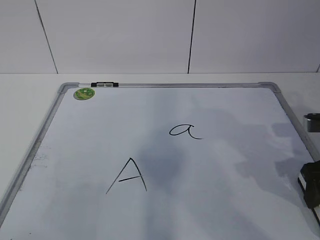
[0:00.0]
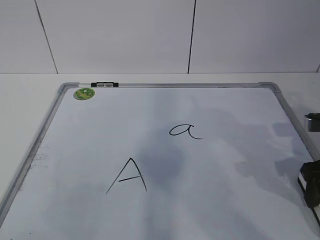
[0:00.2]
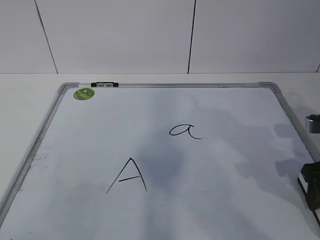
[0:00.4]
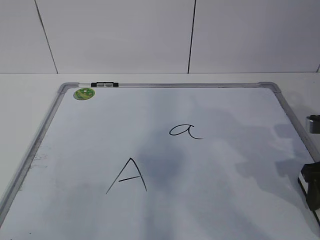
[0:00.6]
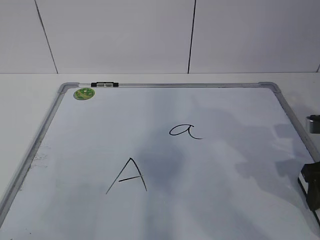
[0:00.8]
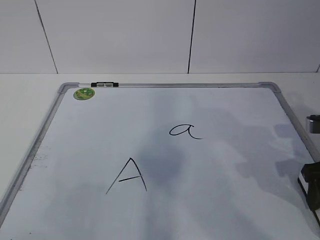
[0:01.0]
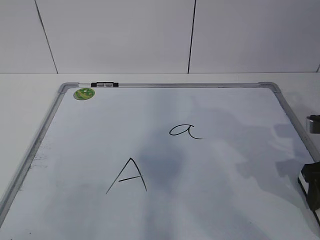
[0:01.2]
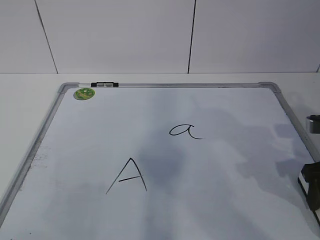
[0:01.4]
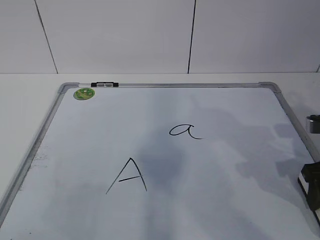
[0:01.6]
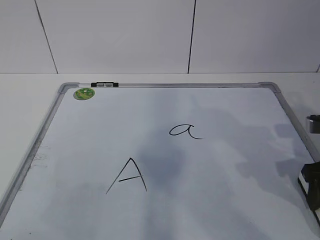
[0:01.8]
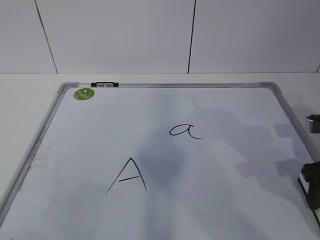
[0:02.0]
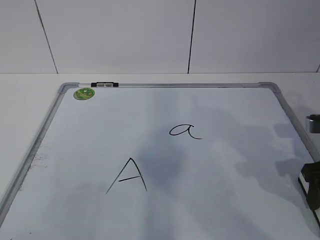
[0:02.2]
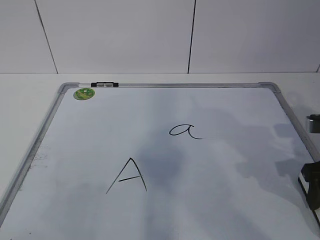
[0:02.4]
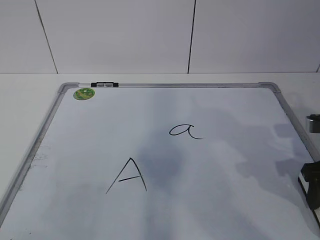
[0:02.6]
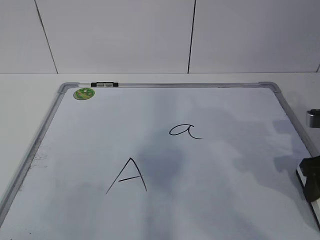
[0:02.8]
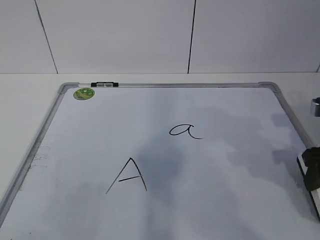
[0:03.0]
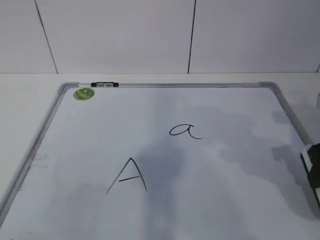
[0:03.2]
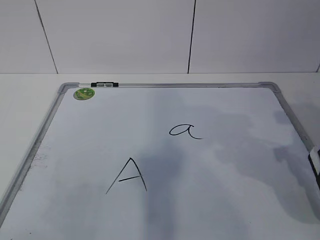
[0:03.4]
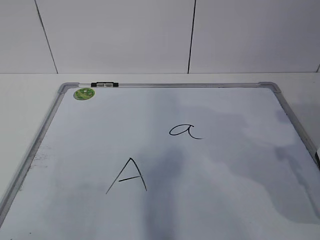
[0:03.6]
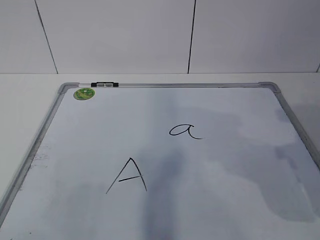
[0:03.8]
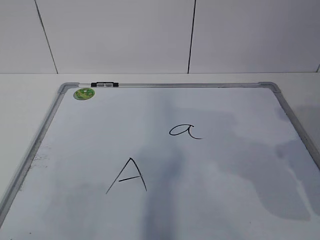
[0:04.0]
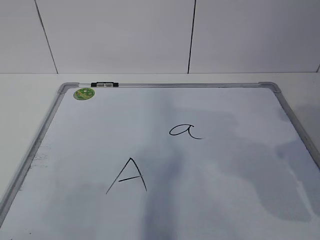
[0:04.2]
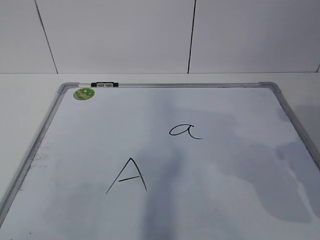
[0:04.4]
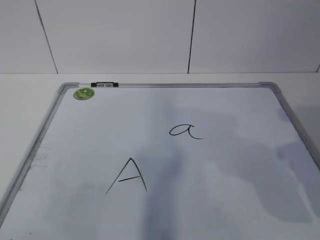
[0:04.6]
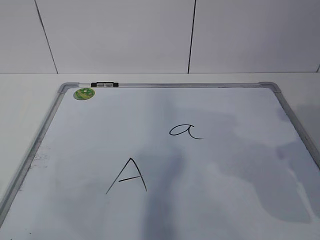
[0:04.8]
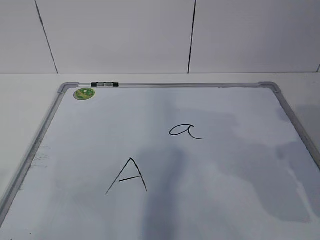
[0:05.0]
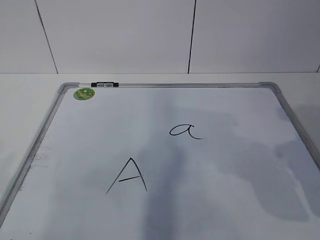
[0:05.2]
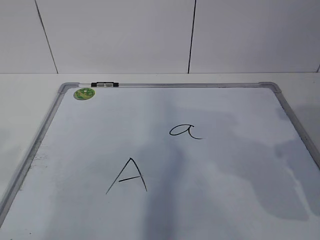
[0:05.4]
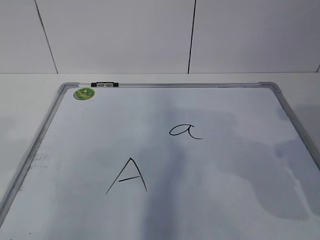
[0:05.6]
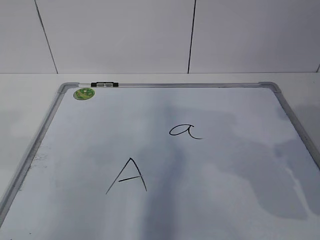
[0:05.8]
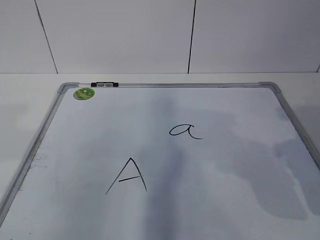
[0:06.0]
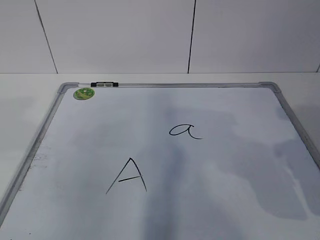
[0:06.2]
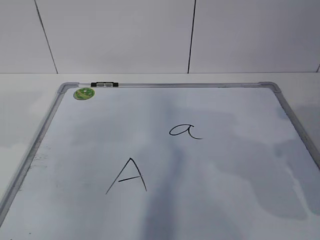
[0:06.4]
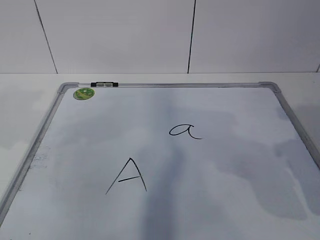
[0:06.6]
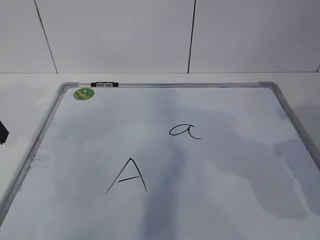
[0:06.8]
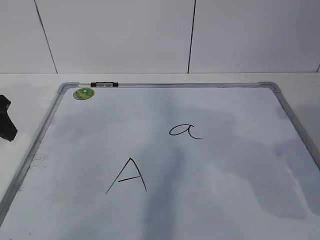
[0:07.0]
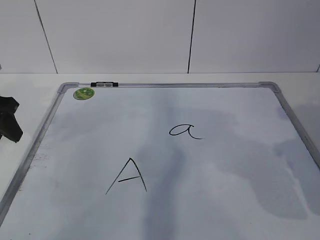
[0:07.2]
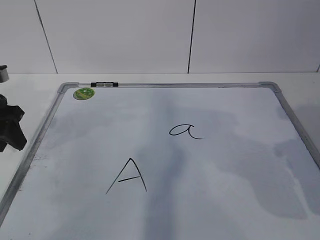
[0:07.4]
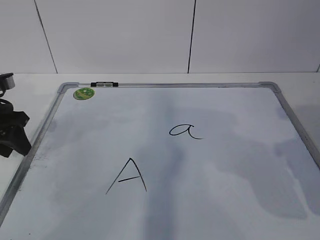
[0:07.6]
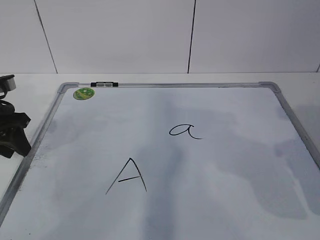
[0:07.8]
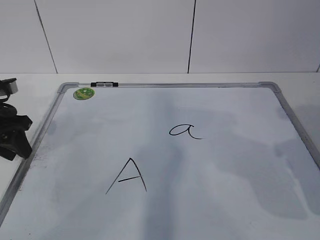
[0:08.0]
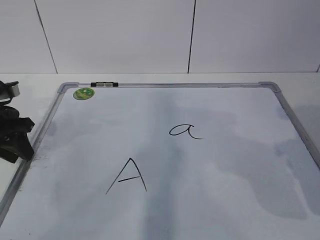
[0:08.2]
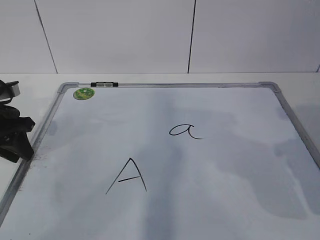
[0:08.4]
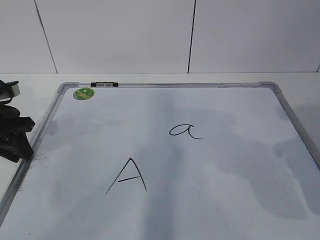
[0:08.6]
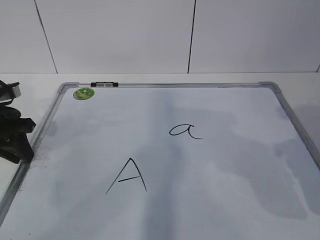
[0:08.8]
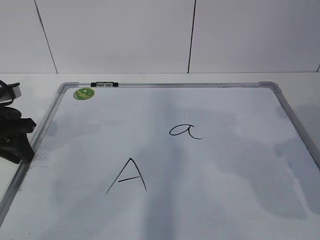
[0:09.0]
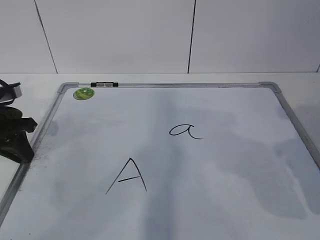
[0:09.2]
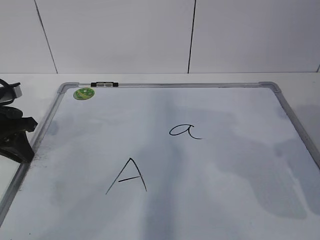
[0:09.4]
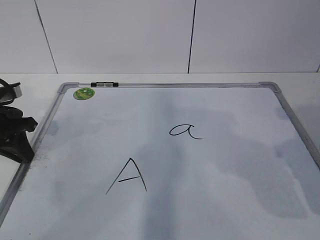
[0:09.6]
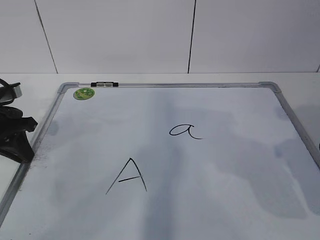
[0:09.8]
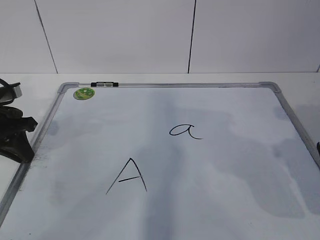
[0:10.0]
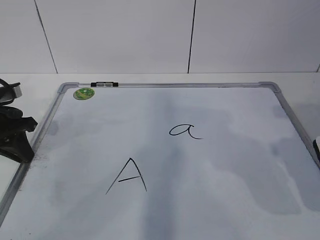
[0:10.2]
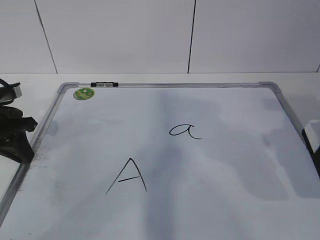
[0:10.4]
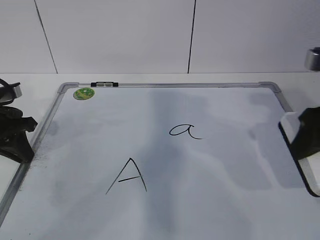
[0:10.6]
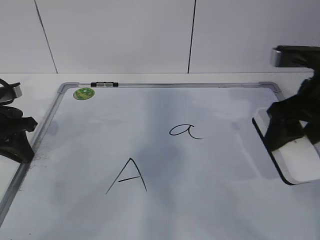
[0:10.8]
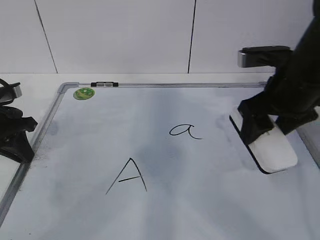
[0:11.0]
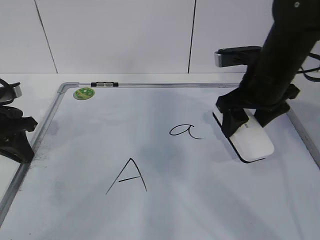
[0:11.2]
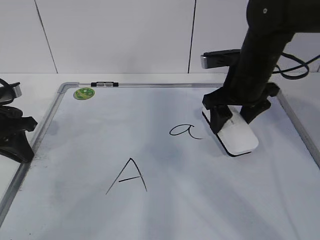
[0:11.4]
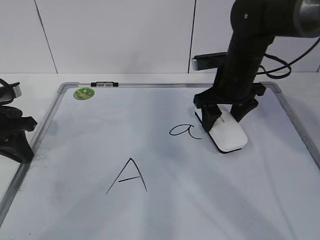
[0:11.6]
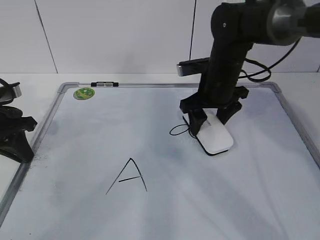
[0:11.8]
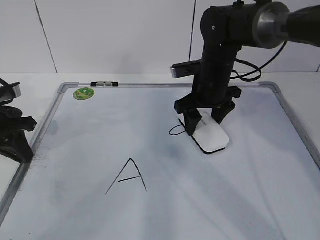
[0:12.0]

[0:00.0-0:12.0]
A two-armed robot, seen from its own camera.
Task of the whole recording: pick up the eraser on the blackboard and erase the letter "a".
Step, 0:00.0 to 0:06.2: Hold the drawing board steady with your left hand.
Step, 0:06.4 to 0:10.8: Erase the letter a with your right hand.
0:00.0 to 0:01.6: Both grippers stay about where they are.
0:01.6 to 0:03.0: The grippers make only small movements.
0:03.0 to 0:04.4: The right gripper moves upward and backward, some 10 cm.
0:06.0 to 0:07.6: The left gripper goes approximately 25 cm forward and downward.
0:07.6 to 0:09.0: The left gripper closes.
0:09.0 to 0:10.4: The grippers move only a little.
0:10.4 to 0:12.0: The right gripper travels forward, to the left and downward by roughly 30 cm.

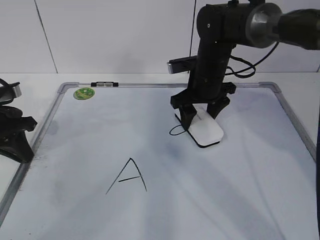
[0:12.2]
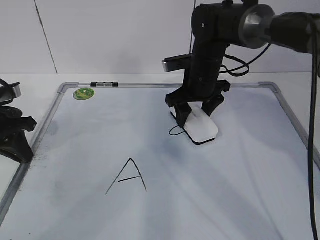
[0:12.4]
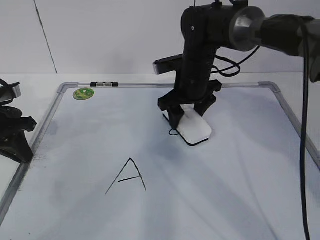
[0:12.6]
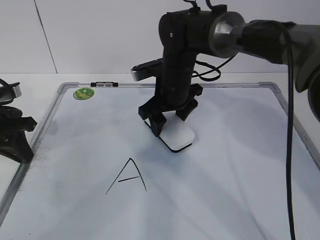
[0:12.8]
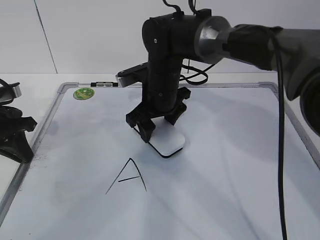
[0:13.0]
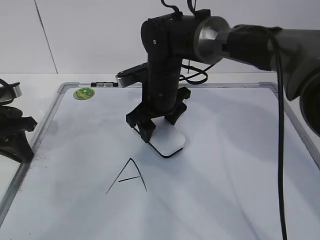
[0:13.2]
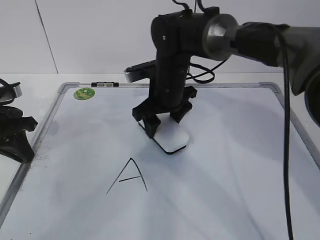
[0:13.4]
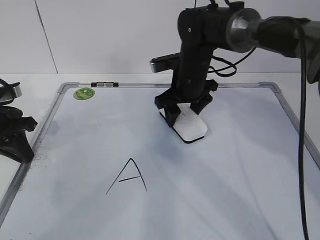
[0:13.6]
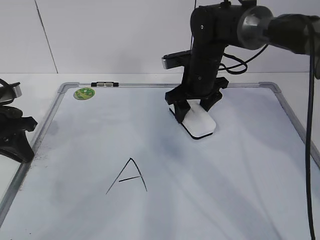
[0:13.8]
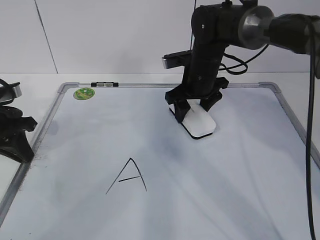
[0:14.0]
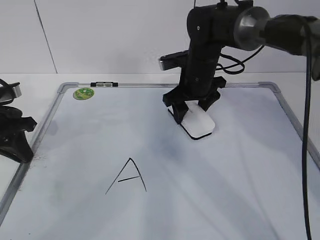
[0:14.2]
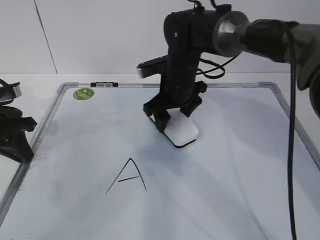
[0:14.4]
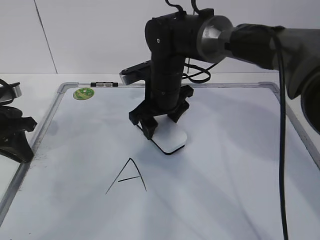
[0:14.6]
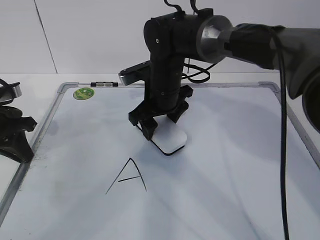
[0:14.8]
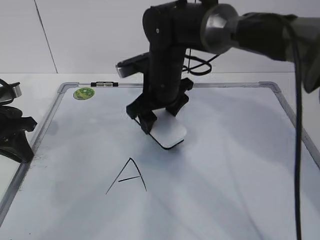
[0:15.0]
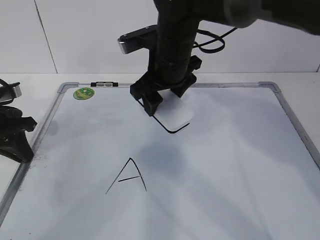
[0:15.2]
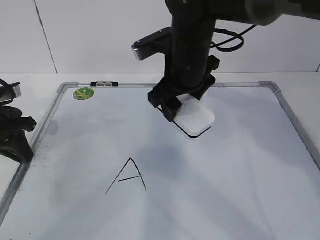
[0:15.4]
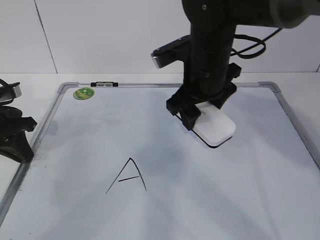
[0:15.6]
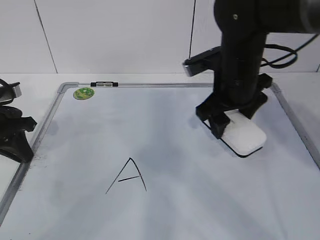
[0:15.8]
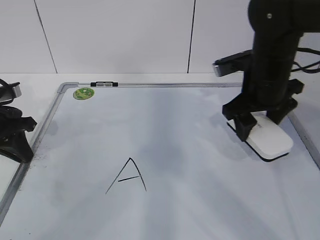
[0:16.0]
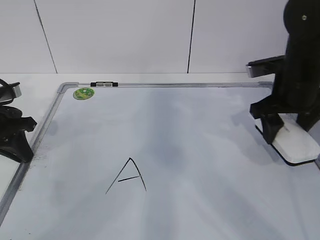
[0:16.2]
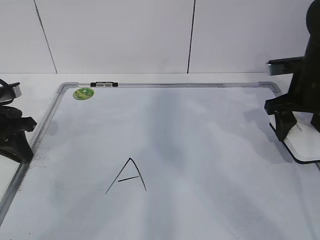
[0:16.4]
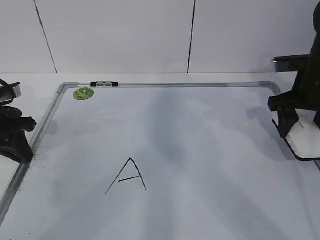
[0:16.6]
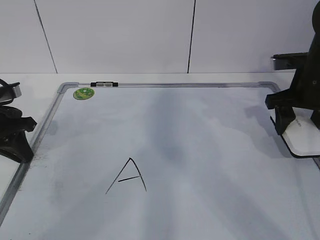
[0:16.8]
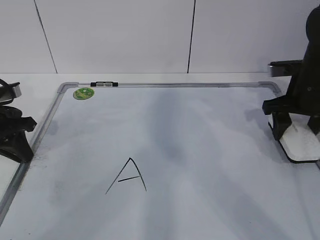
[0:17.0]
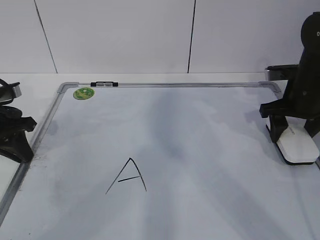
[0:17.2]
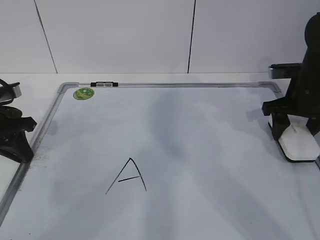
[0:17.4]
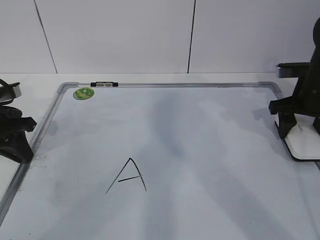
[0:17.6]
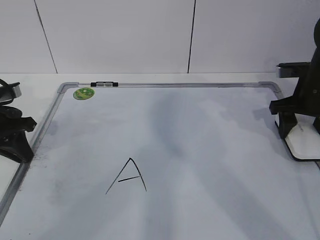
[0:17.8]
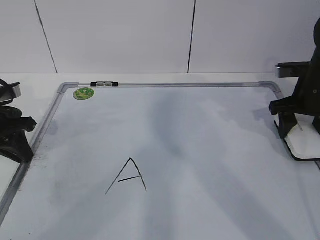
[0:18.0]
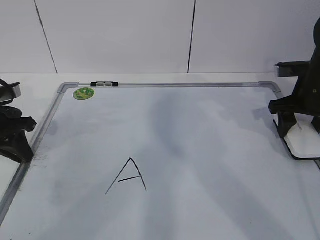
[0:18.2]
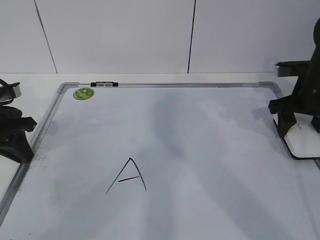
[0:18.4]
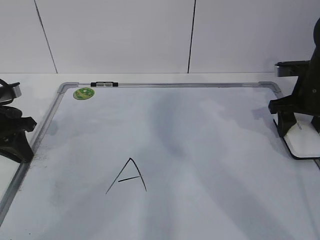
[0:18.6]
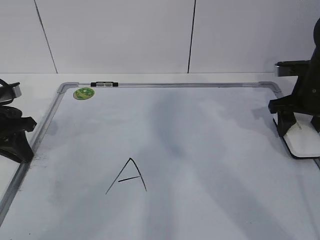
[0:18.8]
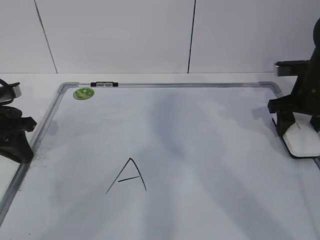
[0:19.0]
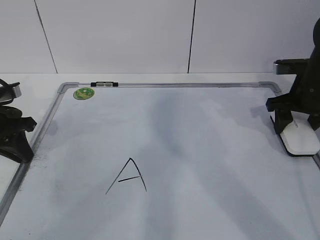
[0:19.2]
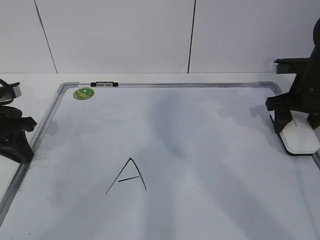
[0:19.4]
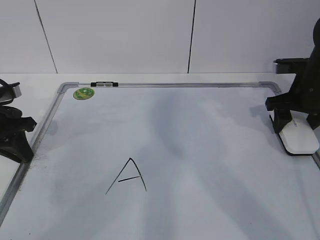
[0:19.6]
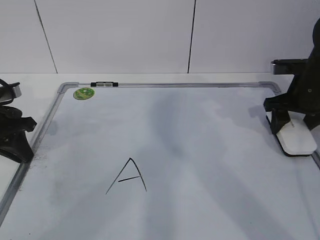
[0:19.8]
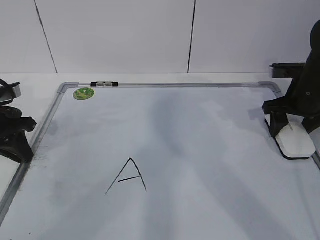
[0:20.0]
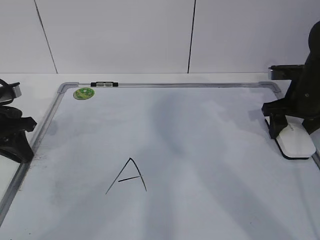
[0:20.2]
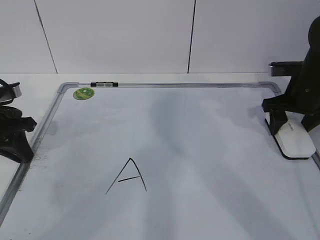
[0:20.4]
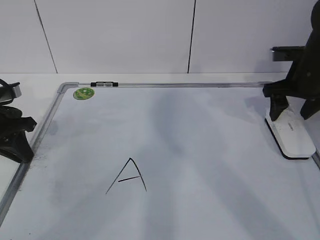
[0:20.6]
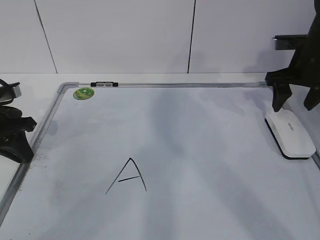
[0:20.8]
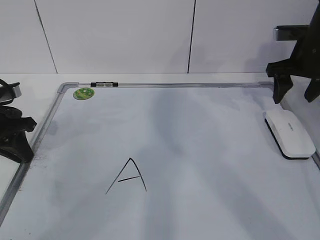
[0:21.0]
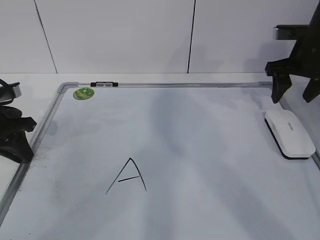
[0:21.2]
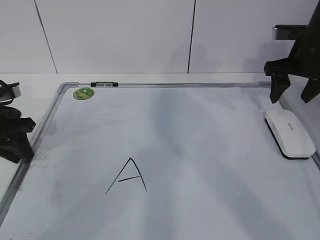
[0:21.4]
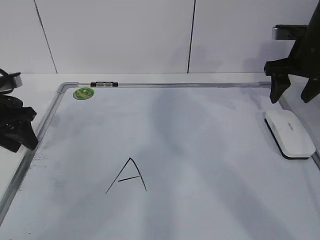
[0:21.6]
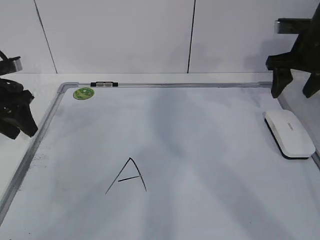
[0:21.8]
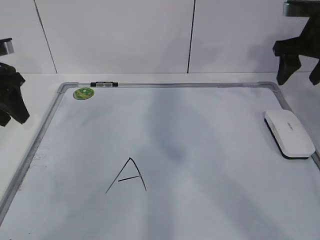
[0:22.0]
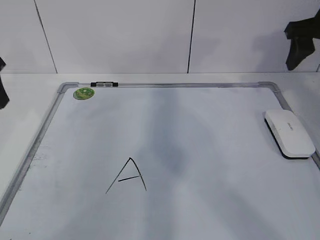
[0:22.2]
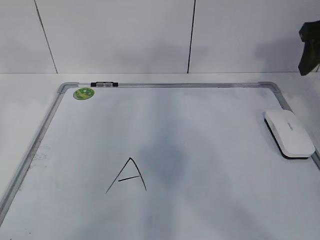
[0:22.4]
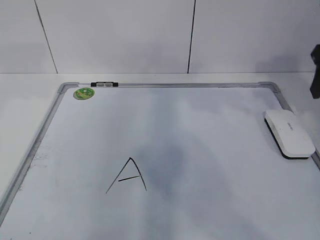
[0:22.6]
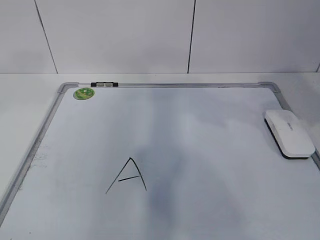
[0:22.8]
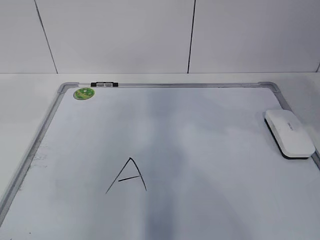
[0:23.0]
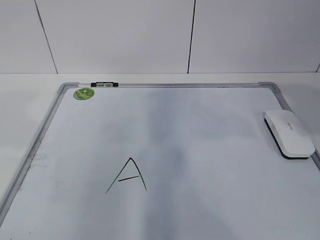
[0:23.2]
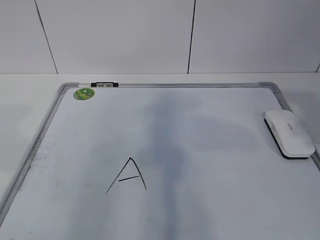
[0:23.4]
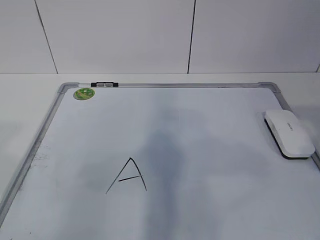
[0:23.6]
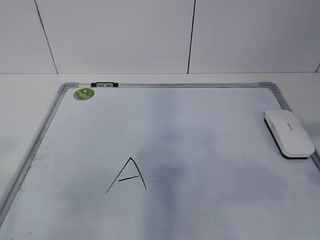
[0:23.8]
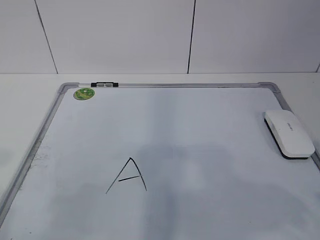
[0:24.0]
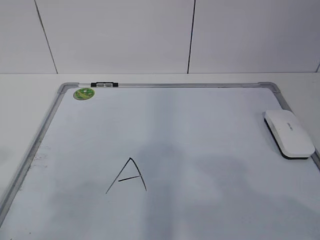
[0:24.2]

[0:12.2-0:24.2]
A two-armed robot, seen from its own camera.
Task of the whole recording: pick up the eraser on the blackboard and erase the letter "a".
Step, 0:12.2 to 0:15.4: Put down the eraser with your right hand.
0:12.2 to 0:13.8: The right gripper reaches some 10 cm to the left, then returns.
0:13.8 to 0:15.2: The right gripper travels to the left, upward and backward by some 10 cm.
0:15.2 to 0:16.6: The right gripper shifts about 25 cm to the right.
0:16.6 to 0:18.2: The grippers stay close to where they were, moving slightly.
0:18.2 to 0:19.8: Both grippers stay put.
0:19.8 to 0:21.2: The right gripper goes roughly 5 cm upward.
0:21.2 to 0:22.6: The right gripper shifts approximately 15 cm backward and upward; the left gripper shifts roughly 20 cm upward, and opens up.
0:22.6 to 0:24.2: The right gripper shifts roughly 30 cm backward.
